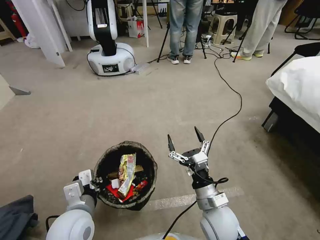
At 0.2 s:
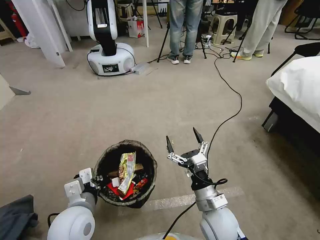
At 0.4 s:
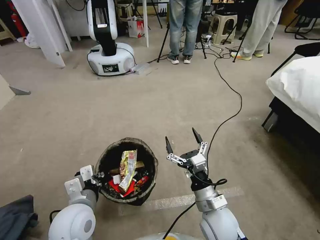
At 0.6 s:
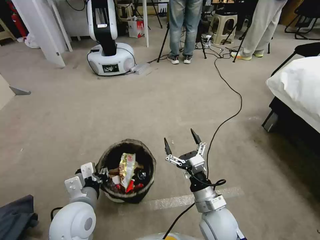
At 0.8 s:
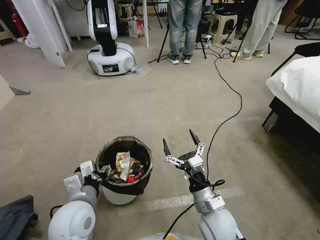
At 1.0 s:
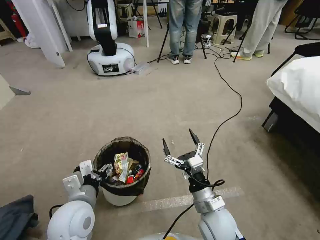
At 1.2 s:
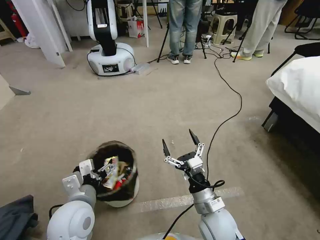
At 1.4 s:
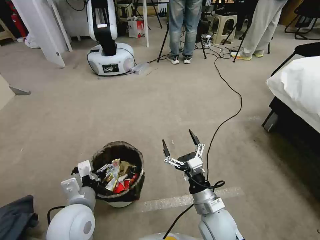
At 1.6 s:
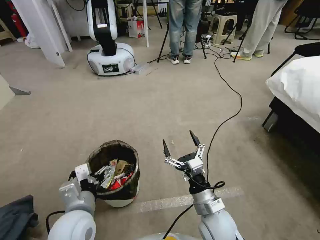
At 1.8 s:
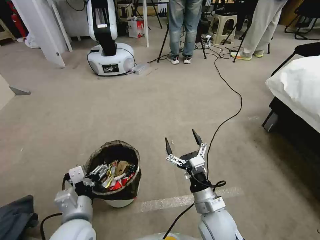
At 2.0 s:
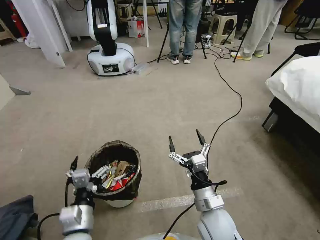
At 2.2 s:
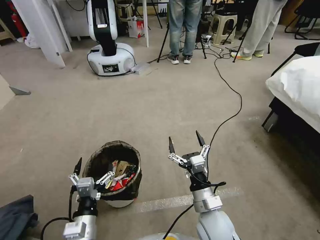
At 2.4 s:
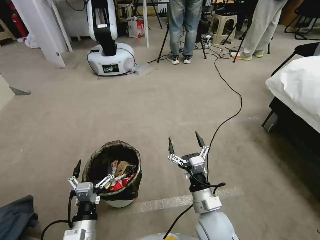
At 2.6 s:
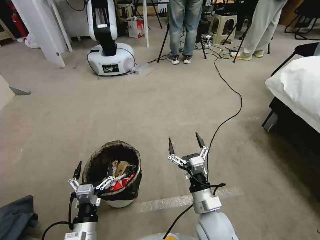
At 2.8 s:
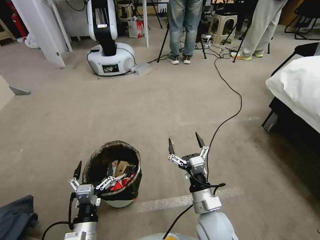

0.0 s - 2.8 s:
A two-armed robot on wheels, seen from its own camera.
Task of the whole recording: Pick up the trash bin, then pick up the garbage from the floor and place it into the trash bin.
0.0 s - 1.4 s: The left gripper opens its fingers.
1.4 s - 2.8 s: The left gripper moves downward and backward, about 15 cm.

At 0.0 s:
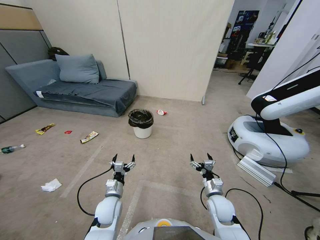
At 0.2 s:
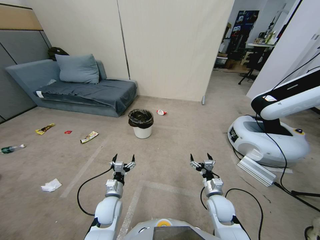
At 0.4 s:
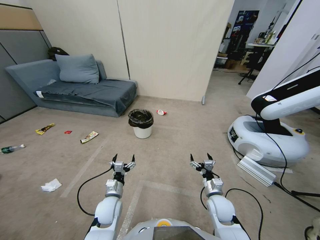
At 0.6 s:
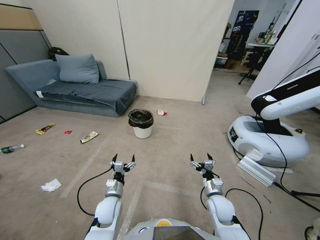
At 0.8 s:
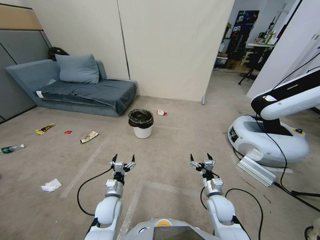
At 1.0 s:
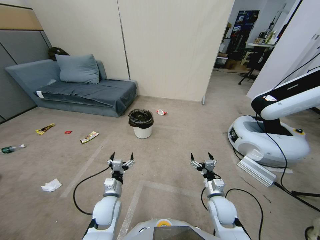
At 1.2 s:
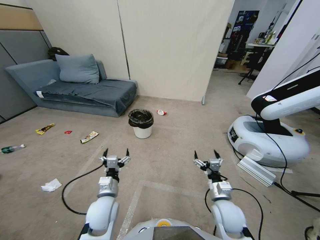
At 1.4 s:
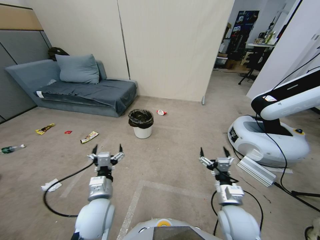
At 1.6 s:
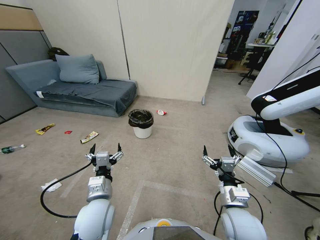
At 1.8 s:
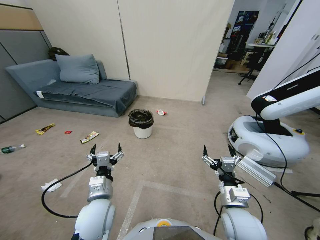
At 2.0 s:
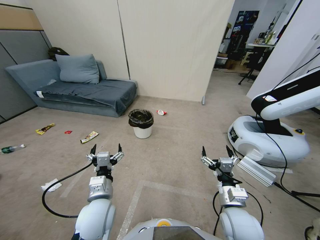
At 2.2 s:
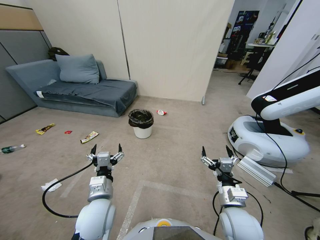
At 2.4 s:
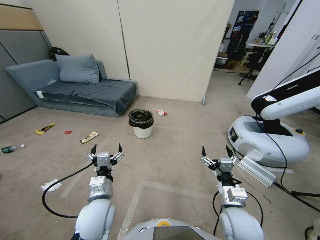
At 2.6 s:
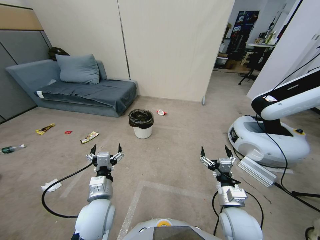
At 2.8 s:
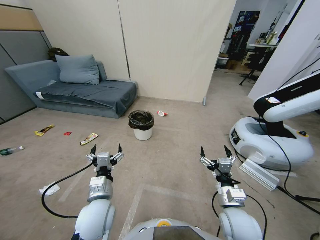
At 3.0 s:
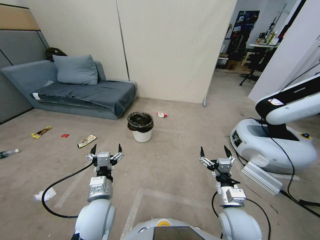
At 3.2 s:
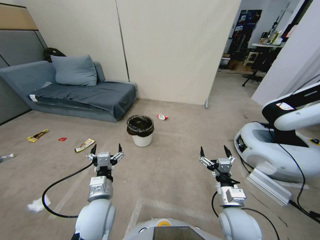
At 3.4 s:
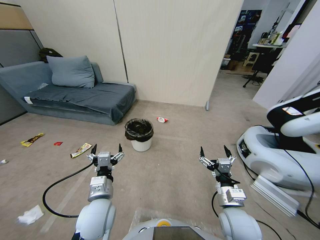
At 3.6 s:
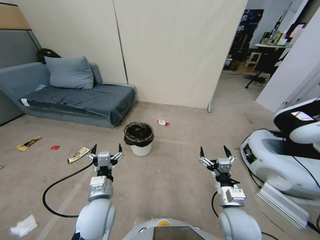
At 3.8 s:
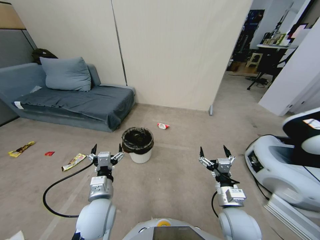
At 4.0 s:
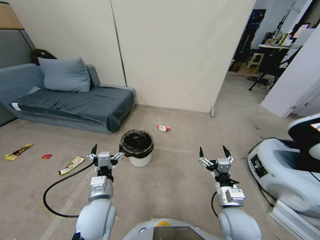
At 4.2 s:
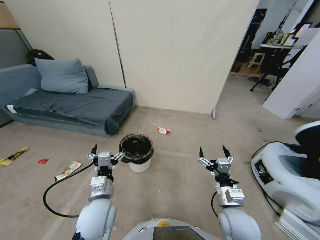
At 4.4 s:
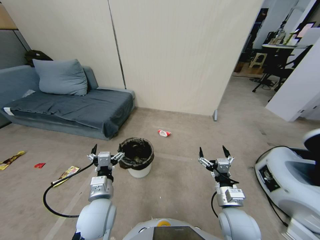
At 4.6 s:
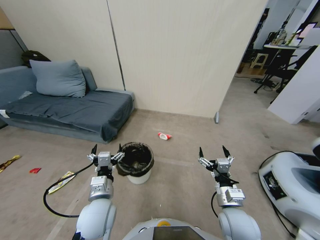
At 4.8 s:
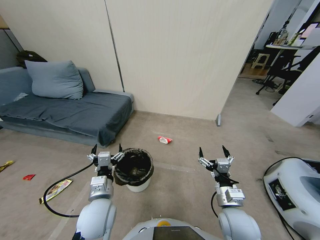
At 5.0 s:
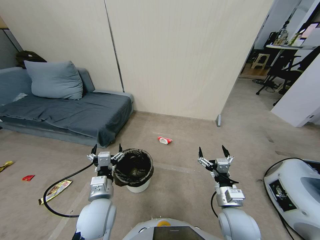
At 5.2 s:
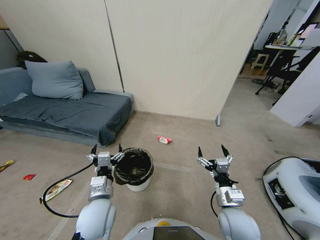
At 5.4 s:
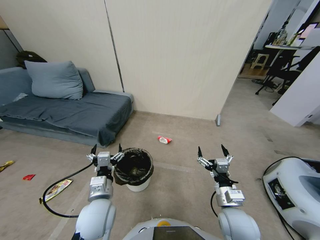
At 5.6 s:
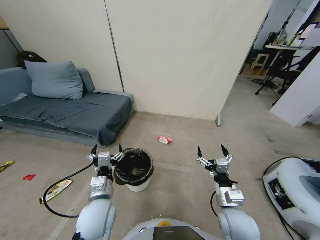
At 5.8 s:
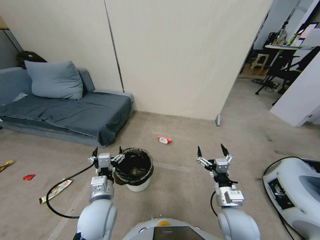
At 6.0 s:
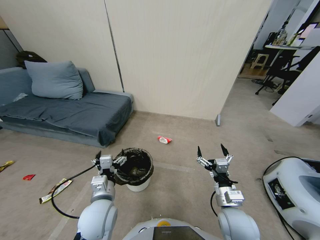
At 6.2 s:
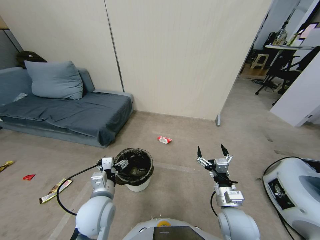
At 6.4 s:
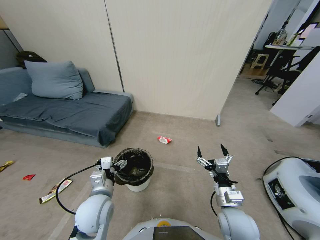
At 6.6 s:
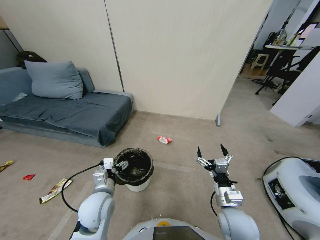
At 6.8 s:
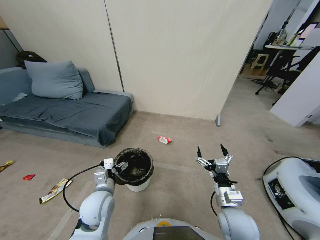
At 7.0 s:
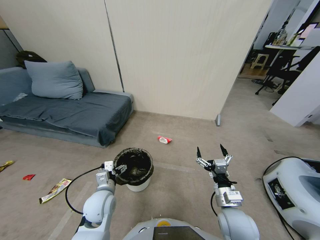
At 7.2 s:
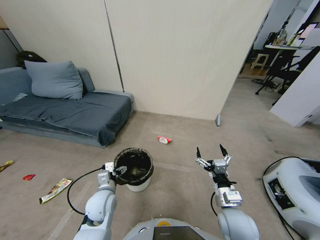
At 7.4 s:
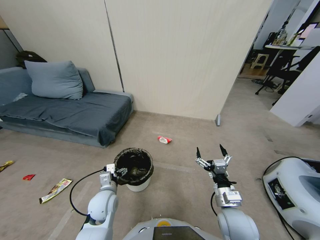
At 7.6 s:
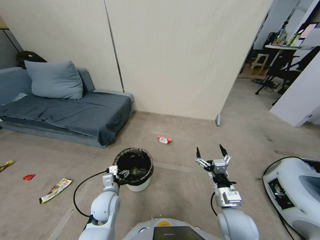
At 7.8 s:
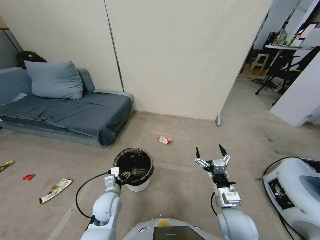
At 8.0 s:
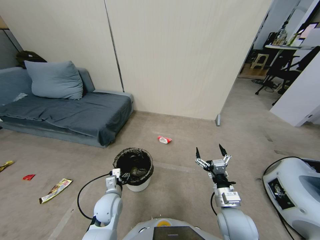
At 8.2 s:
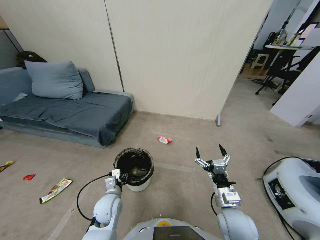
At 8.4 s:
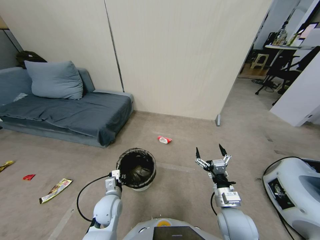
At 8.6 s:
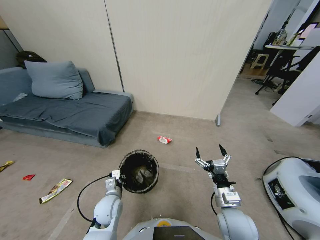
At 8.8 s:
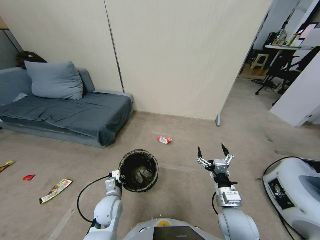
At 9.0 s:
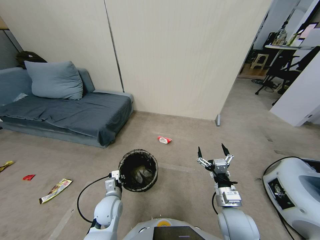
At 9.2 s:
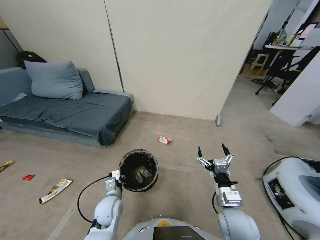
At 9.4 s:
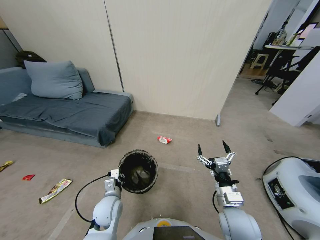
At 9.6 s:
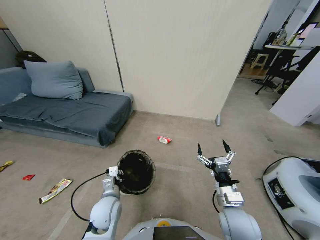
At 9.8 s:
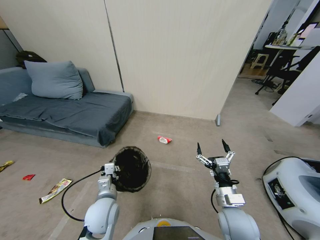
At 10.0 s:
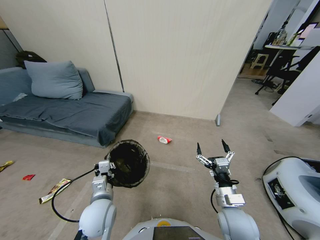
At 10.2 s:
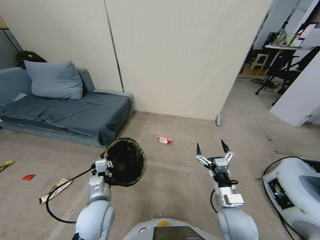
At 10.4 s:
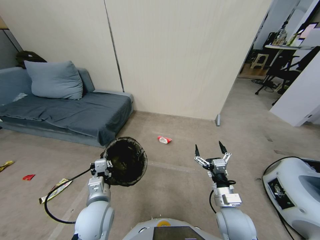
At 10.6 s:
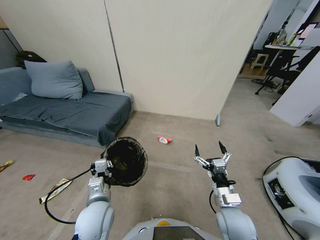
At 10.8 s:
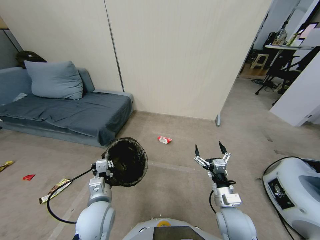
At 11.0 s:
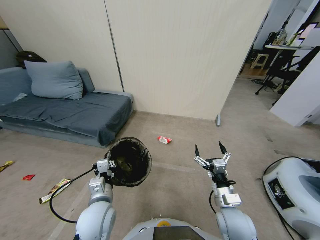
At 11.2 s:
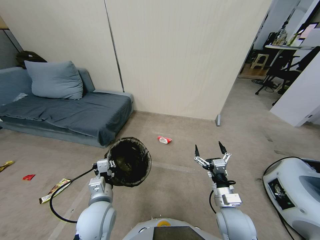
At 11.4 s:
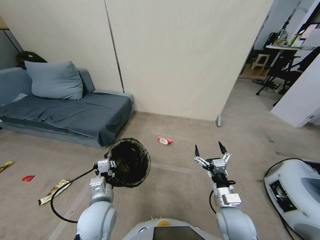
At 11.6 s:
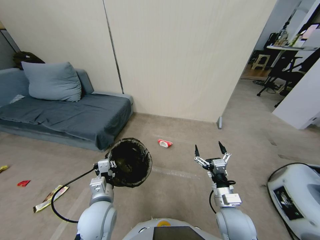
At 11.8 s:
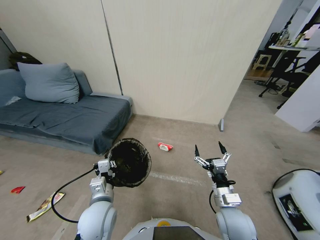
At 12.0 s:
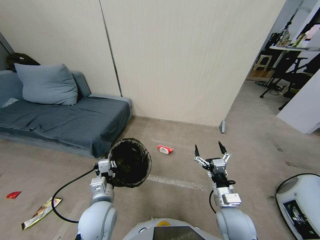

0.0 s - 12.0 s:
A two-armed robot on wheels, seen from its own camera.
Task of the whole recording: Pick up the trash bin, then pick up the garbage from the floor and place it into the trash bin.
1.6 s - 3.0 s: The grippers make only small movements.
6.0 s - 7.6 s: The left gripper heads downward, covering approximately 10 cm.
7.6 s - 9.0 s: The left gripper closes.
9.0 s - 10.4 s: The left gripper moves upward, about 10 cm.

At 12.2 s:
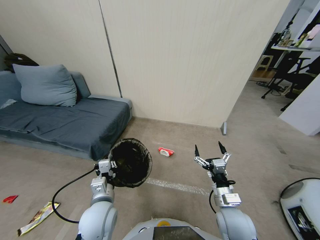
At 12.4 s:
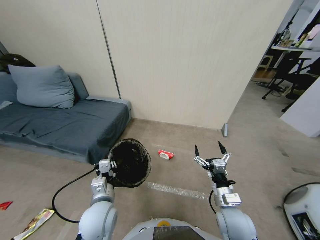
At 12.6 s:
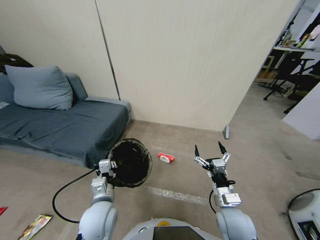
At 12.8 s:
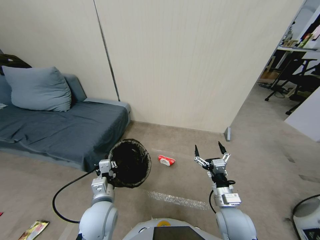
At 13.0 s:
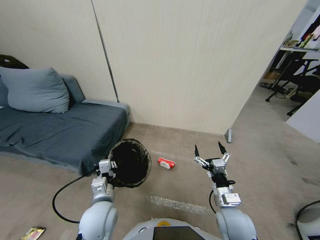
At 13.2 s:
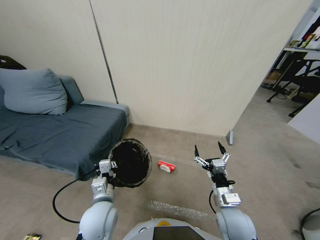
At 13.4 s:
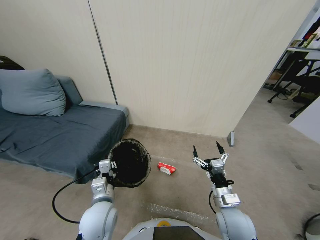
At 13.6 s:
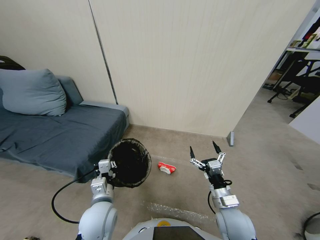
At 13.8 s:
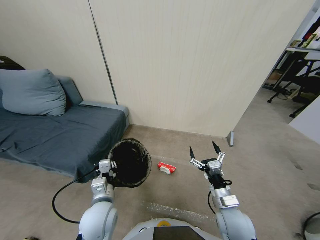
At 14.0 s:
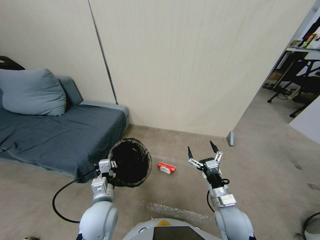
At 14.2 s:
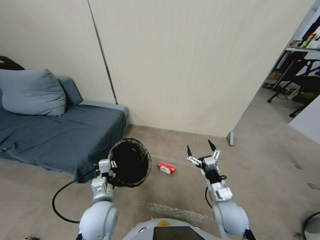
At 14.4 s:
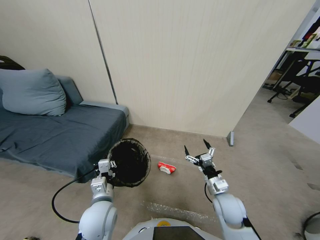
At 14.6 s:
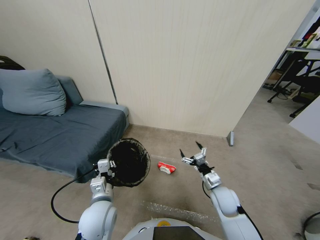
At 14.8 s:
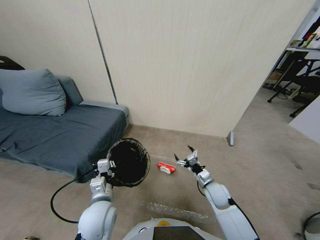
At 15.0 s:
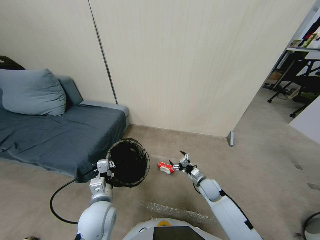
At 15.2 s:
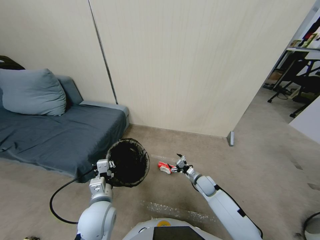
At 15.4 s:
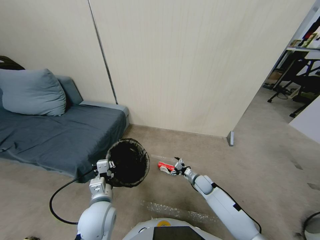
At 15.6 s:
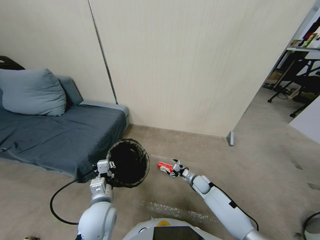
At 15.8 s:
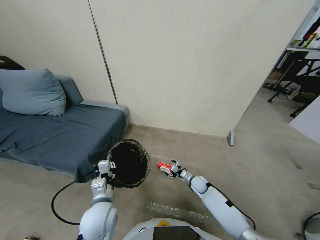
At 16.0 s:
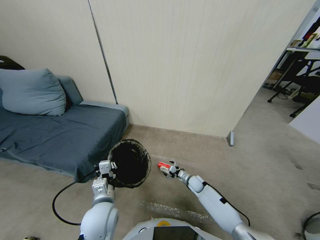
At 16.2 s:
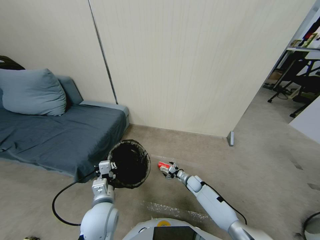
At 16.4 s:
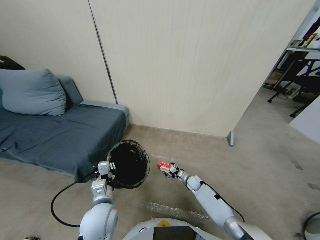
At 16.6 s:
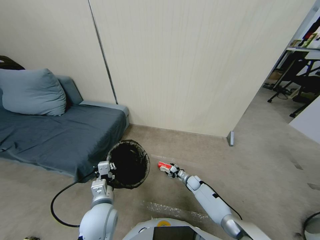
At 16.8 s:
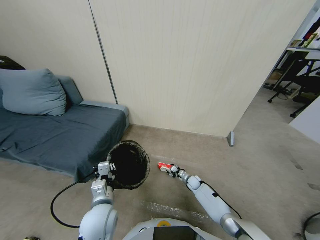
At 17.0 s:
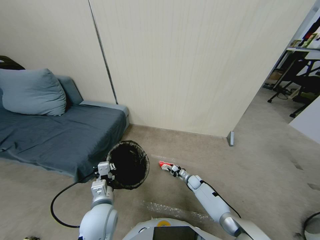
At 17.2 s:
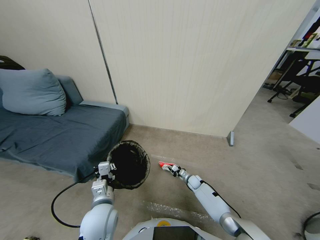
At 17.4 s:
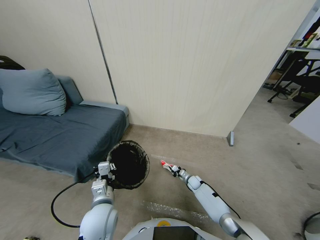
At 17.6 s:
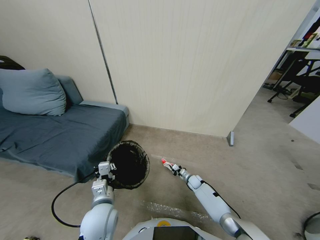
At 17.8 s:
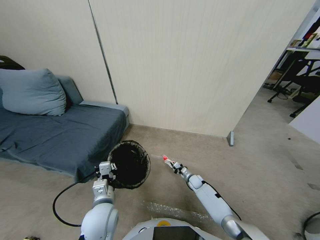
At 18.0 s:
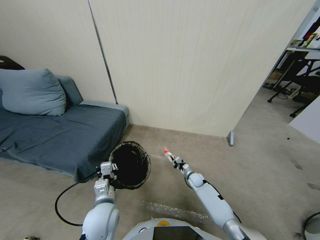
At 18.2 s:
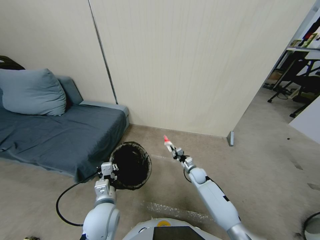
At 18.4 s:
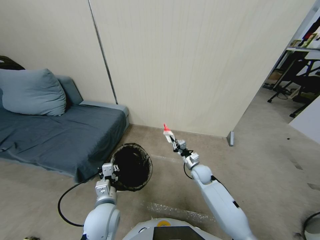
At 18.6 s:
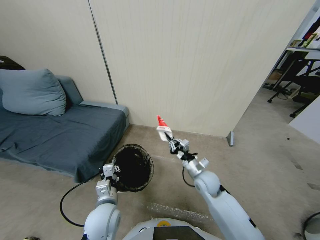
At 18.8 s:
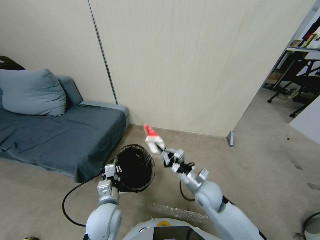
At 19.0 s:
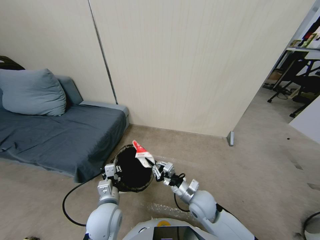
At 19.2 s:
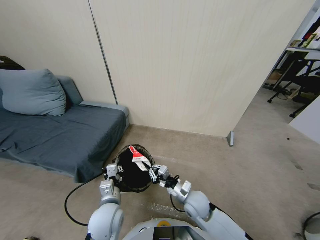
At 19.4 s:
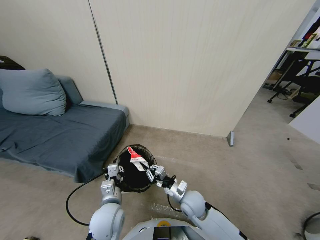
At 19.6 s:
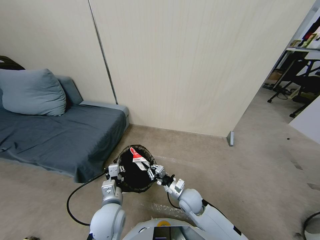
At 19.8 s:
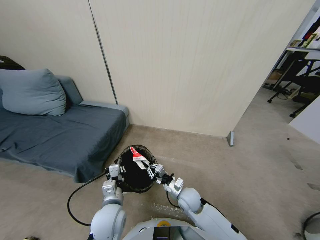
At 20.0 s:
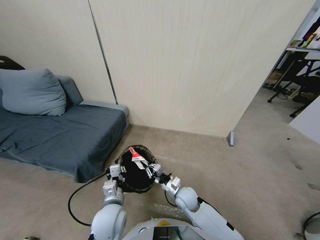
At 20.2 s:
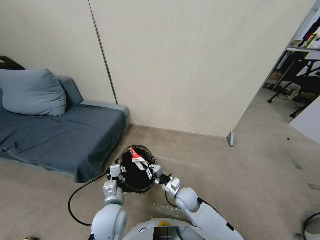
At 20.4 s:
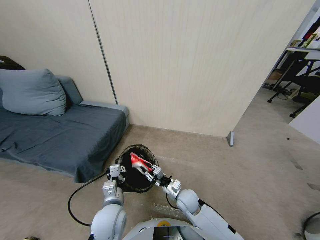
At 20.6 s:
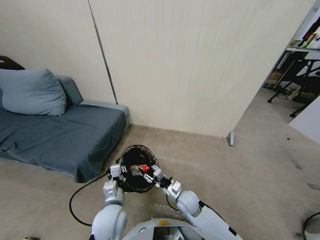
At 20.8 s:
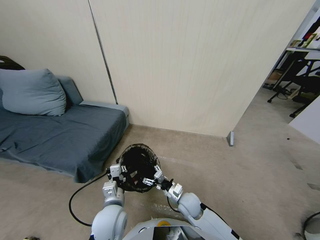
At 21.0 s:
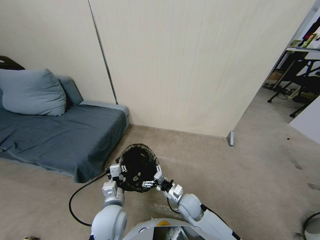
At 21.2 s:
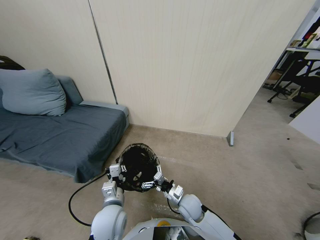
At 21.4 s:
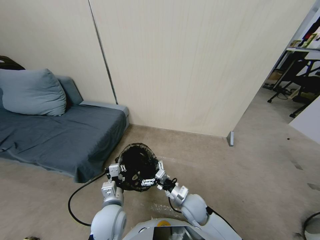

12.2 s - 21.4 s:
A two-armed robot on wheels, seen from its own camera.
Task of the whole recording: Pick up the trash bin, then pick up the garbage from the floor and place it into the trash bin.
13.8 s - 15.2 s: The right gripper is displaced forward and downward by approximately 25 cm.
15.2 s - 16.8 s: The right gripper is displaced downward and forward by about 15 cm, and closes up.
16.8 s - 18.4 s: The right gripper moves upward, roughly 25 cm, and closes up.
18.4 s - 19.8 s: The right gripper is displaced to the left, backward and downward by about 10 cm.
19.8 s - 21.4 s: The right gripper moves upward, some 5 cm, and opens its fingers.
